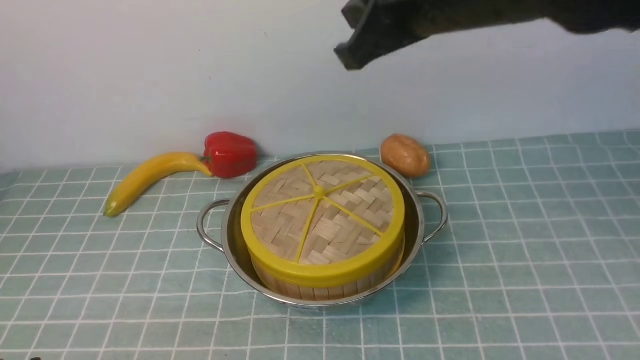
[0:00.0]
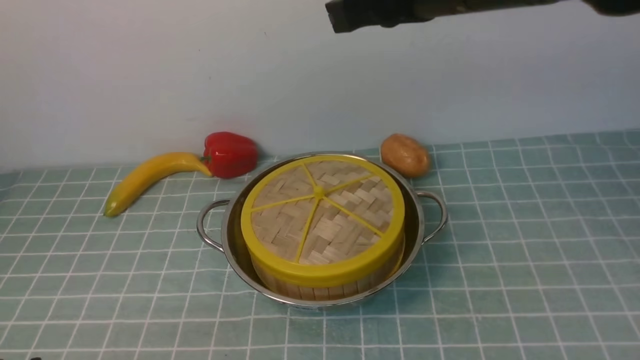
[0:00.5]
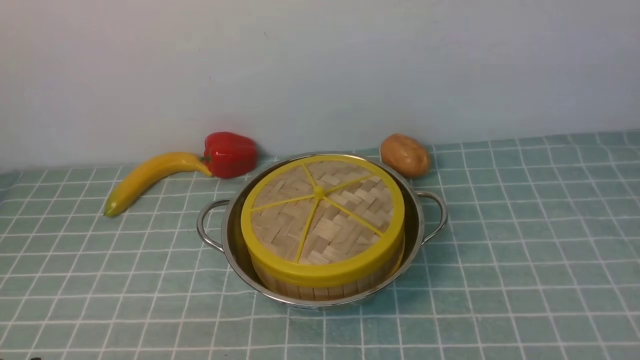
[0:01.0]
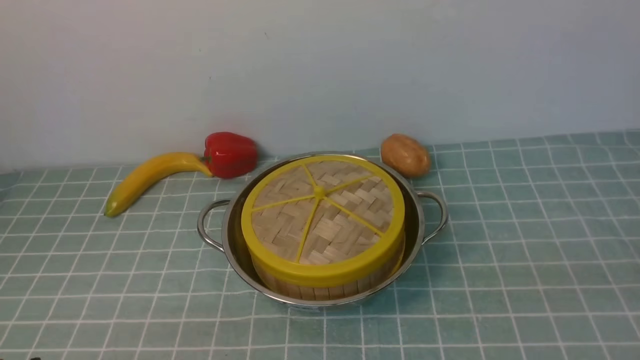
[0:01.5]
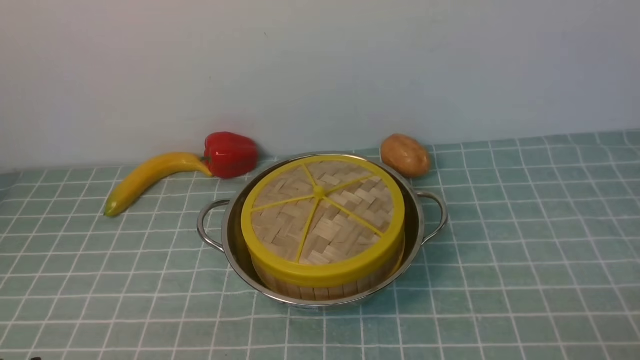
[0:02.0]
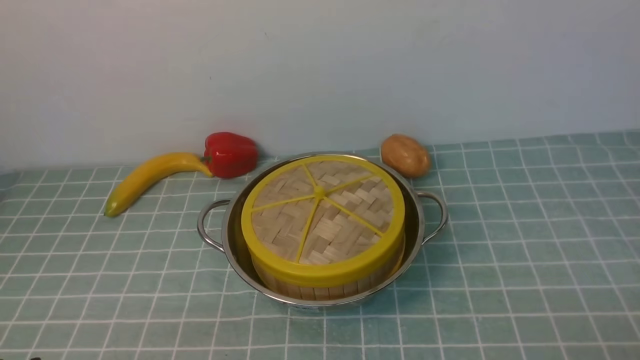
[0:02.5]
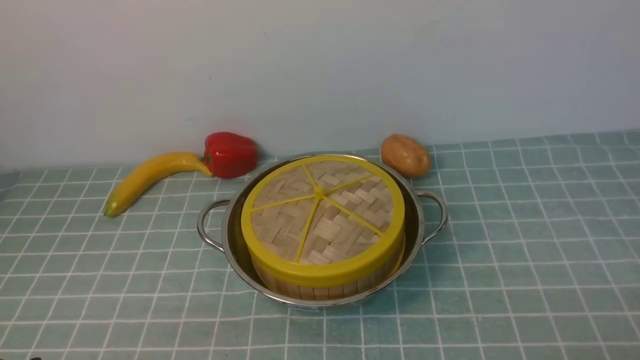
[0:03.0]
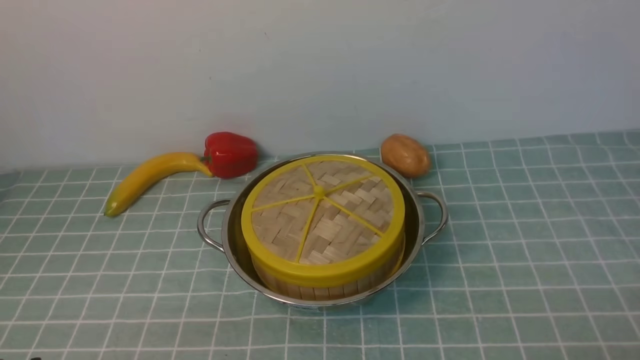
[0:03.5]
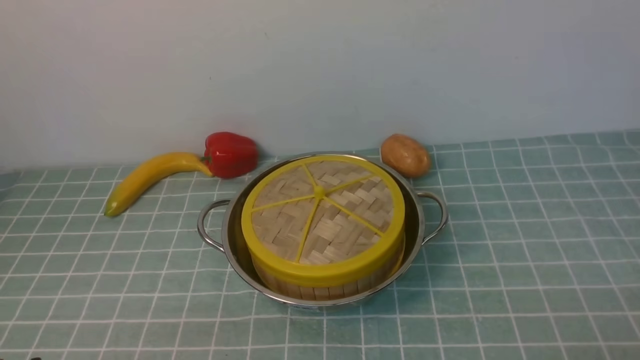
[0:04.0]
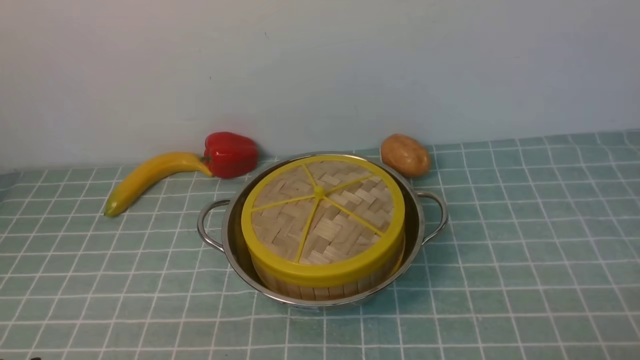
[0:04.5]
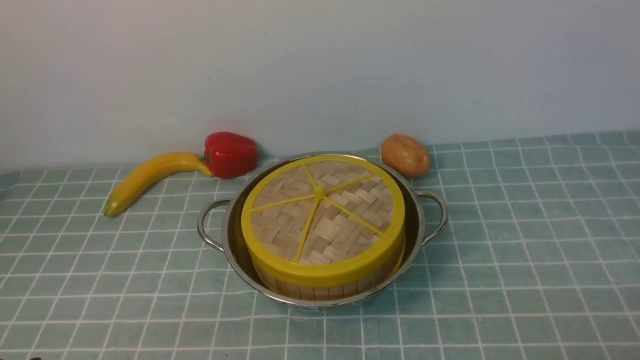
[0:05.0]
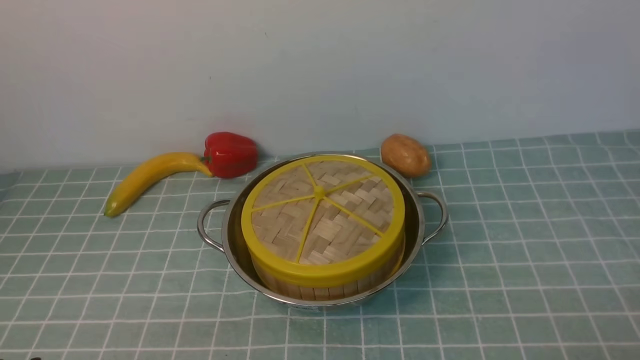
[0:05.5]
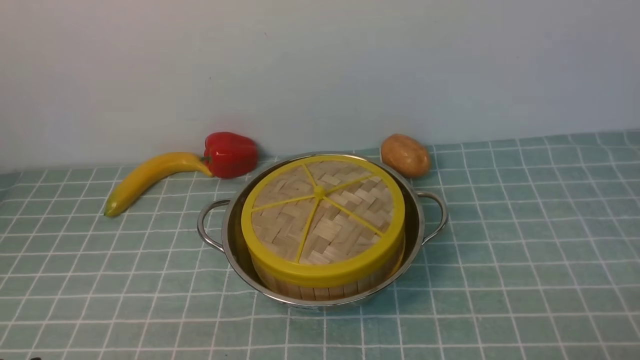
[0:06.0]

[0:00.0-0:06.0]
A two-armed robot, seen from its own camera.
Task of the whole recording: place the steamer in the pot on the blue tablecloth, and put the lid on the steamer.
0:00.0 to 0:02.0: The right gripper goes approximately 40 cm backward, to the right and downward.
0:04.0 to 0:06.0: Both grippers stay put.

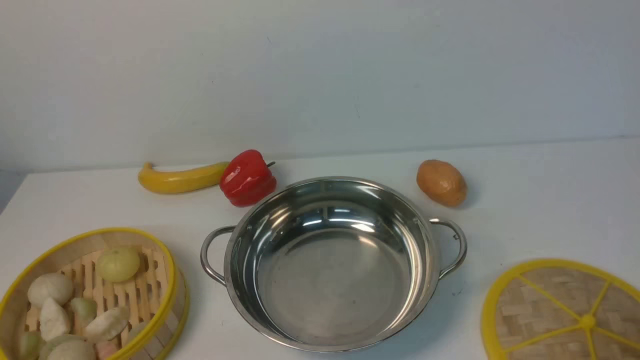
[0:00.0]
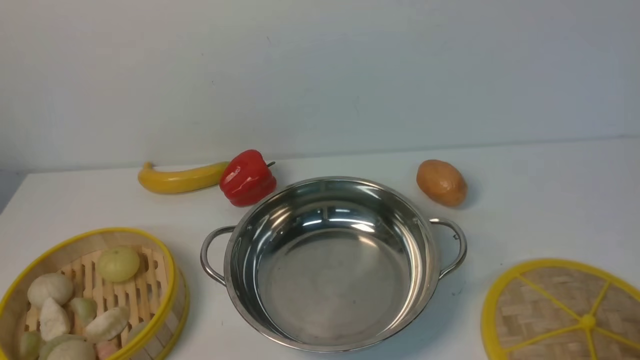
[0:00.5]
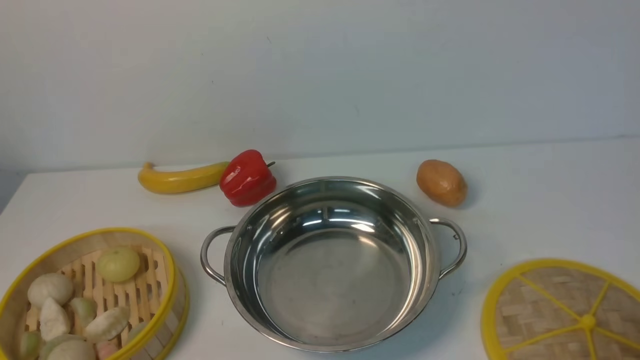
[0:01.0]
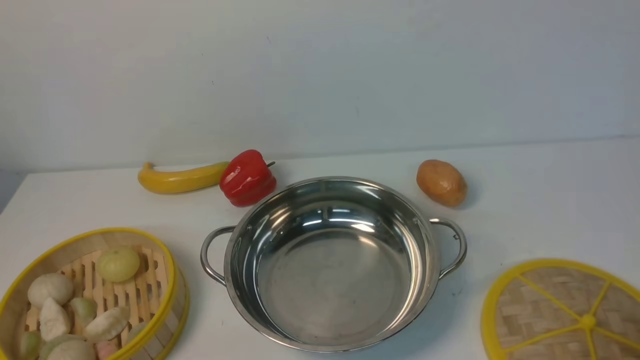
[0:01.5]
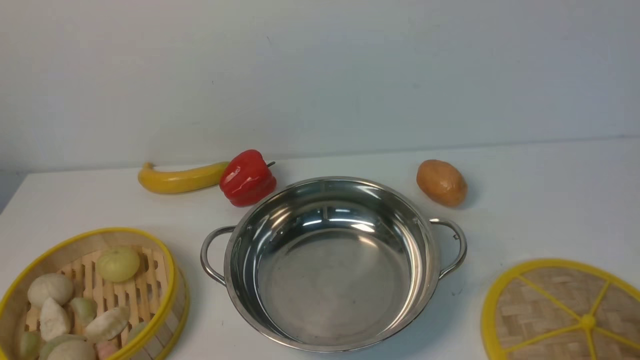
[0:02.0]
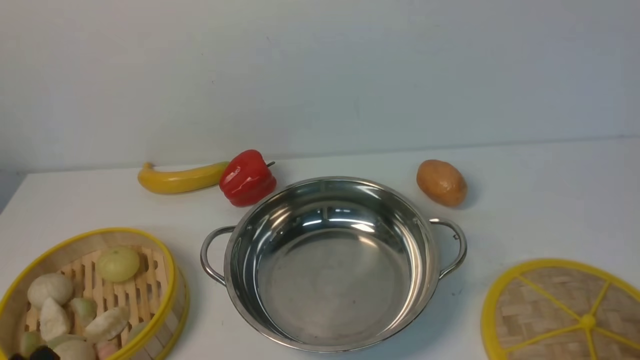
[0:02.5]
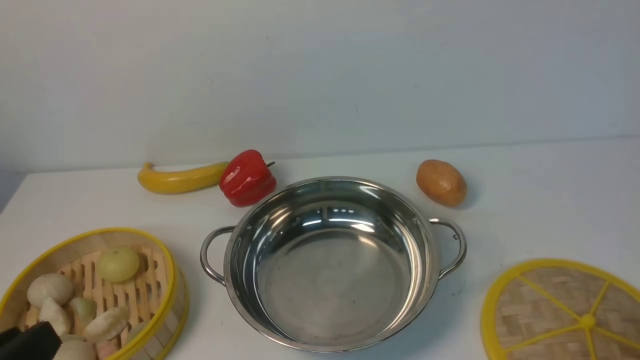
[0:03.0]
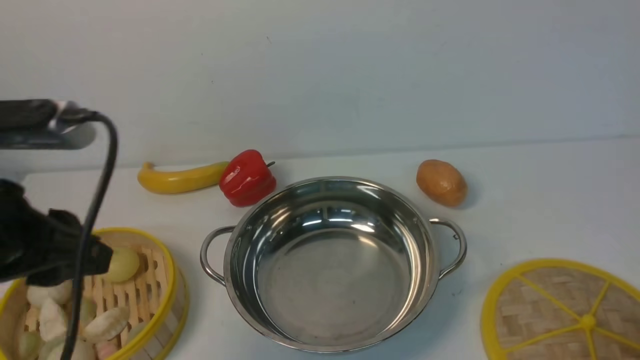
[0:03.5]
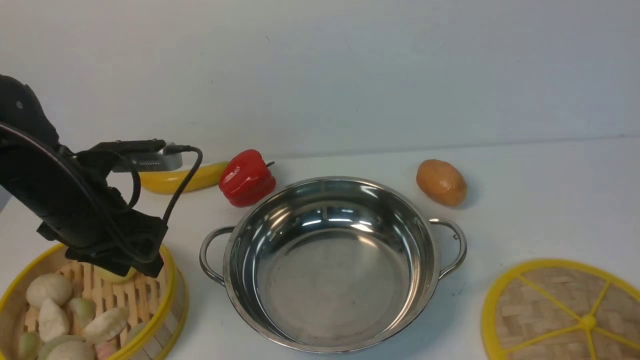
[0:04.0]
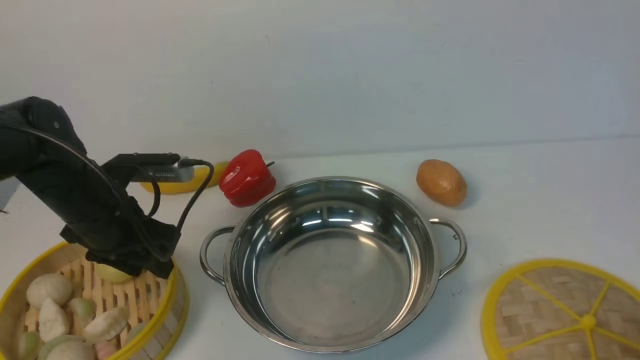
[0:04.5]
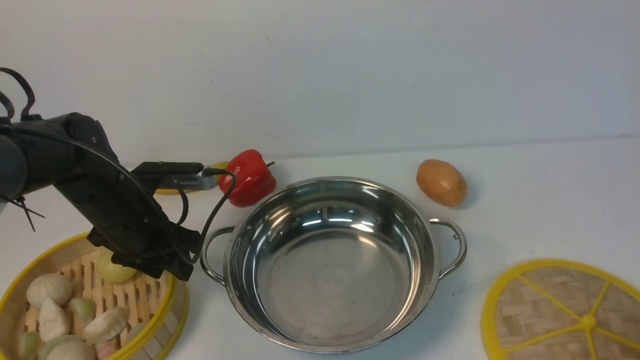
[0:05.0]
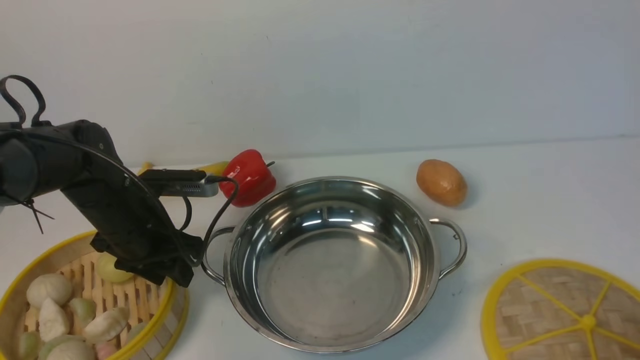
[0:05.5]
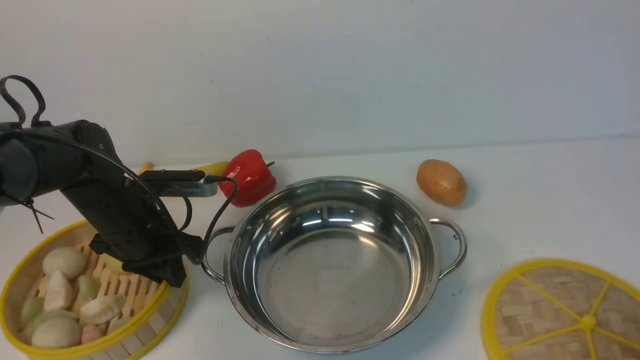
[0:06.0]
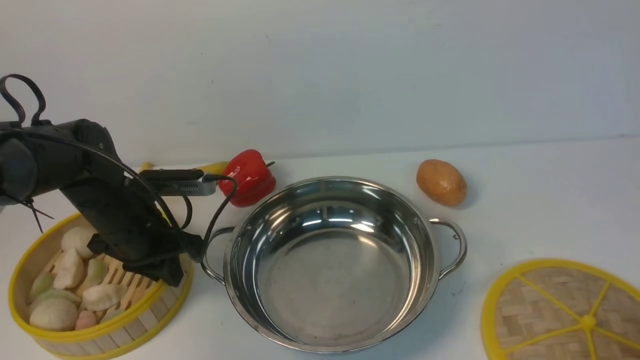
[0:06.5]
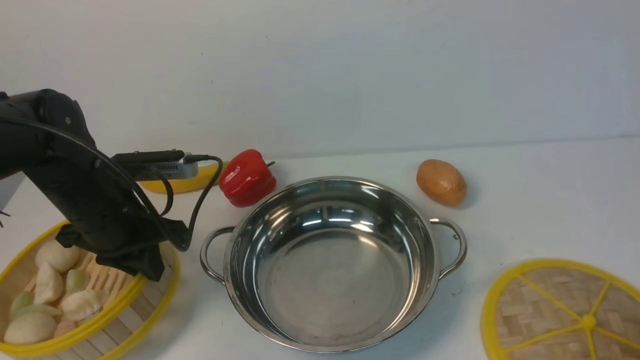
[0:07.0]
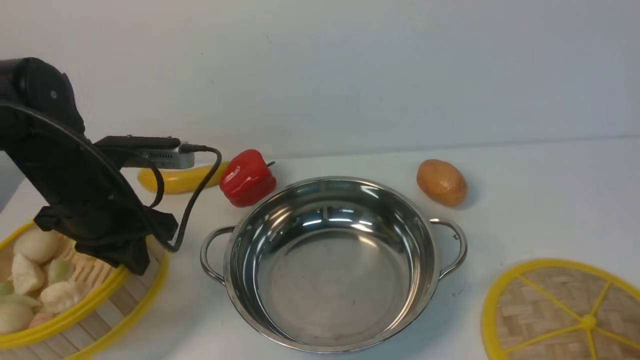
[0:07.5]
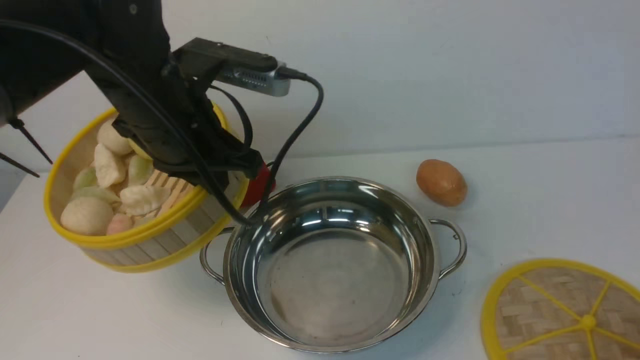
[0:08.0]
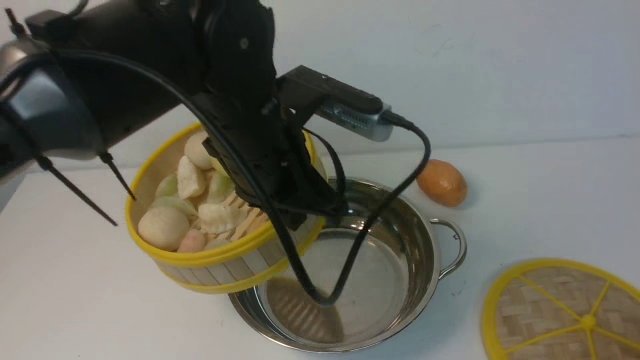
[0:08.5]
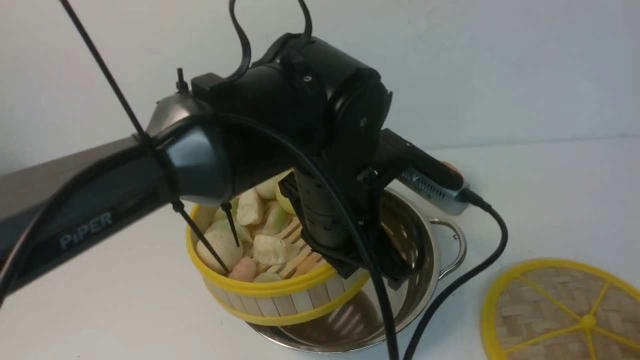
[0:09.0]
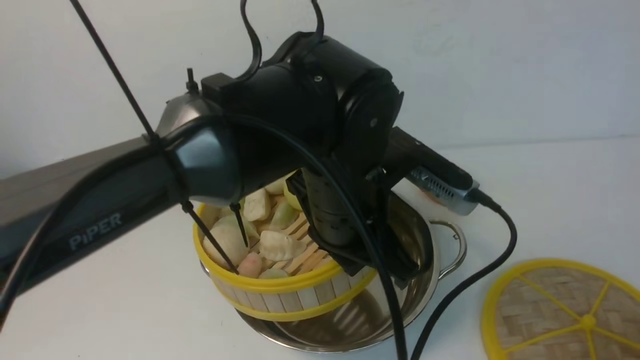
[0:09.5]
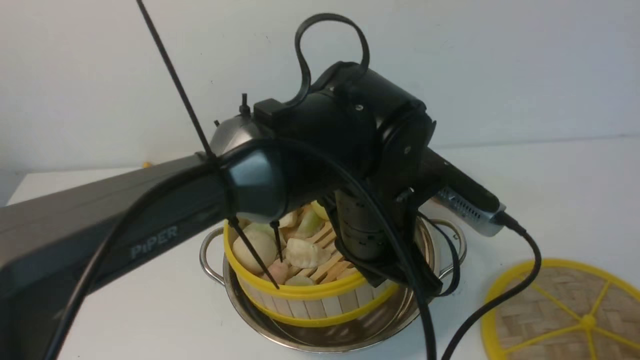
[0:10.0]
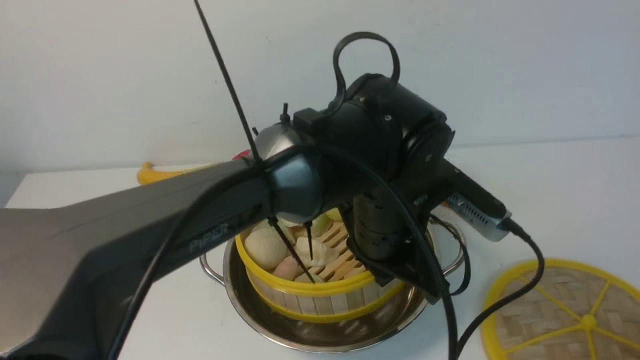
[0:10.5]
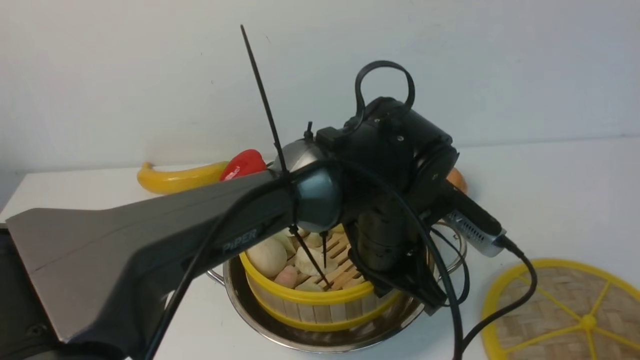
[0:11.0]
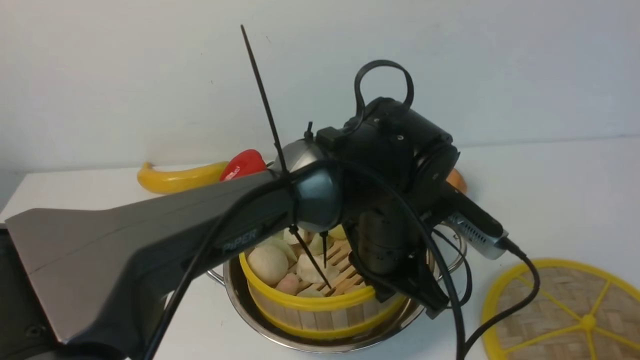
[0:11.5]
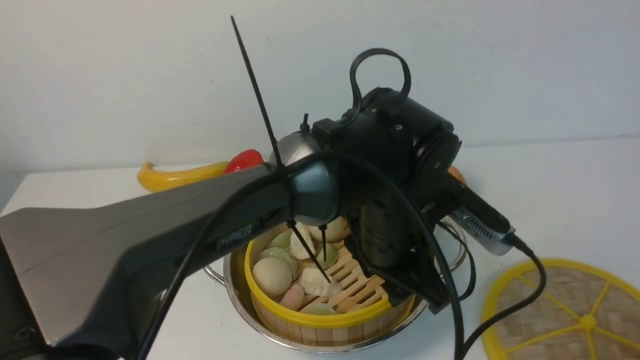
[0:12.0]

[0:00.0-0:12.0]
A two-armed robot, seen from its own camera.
Task of the whole recording: place the steamer in the pot on the white table, and put the lid on the steamer.
Step, 0:00.0 to 0:07.0: use the left arm to lift the steamer closest to it.
0:00.0 to 0:02.0: Both grippers stay about where they are.
0:02.0 to 0:04.0: The left gripper goes some 25 cm forward.
0:04.0 to 0:06.0: The left gripper shifts roughly 10 cm downward, and closes up.
0:06.0 to 0:08.0: The left gripper travels upward and to the right by about 20 cm.
0:08.0 to 0:10.0: The left gripper heads to the right, covering roughly 15 cm.
0:10.0 to 0:12.0: The left gripper opens.

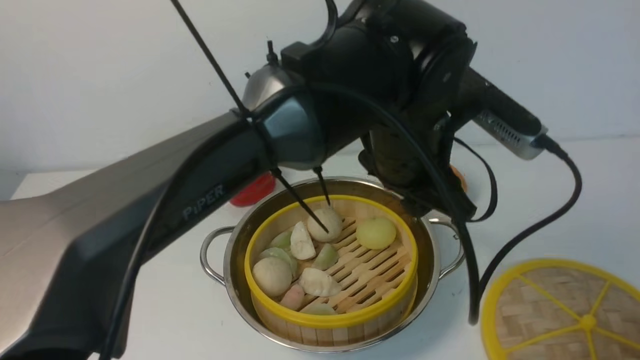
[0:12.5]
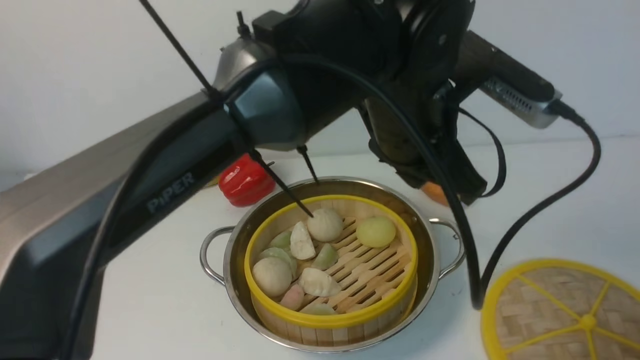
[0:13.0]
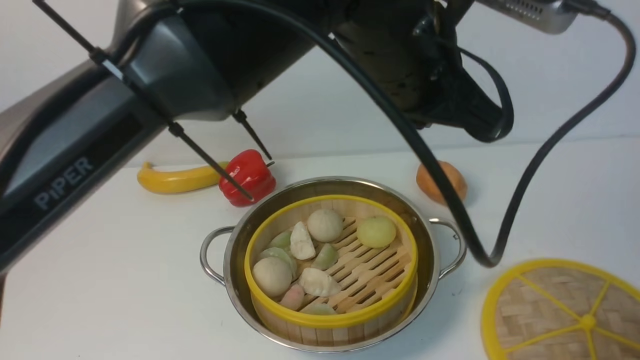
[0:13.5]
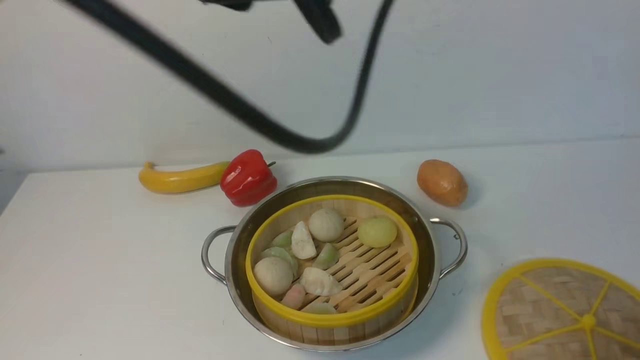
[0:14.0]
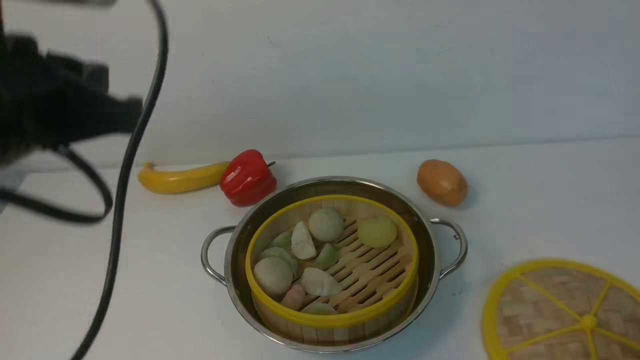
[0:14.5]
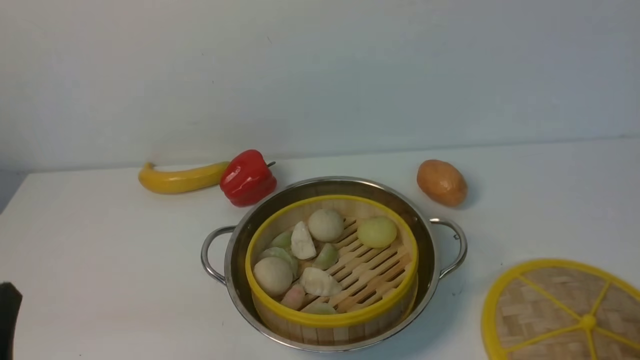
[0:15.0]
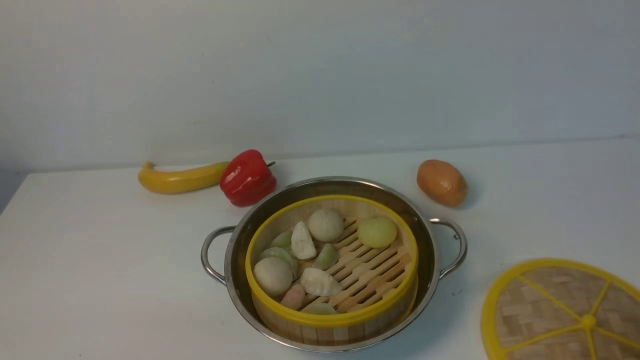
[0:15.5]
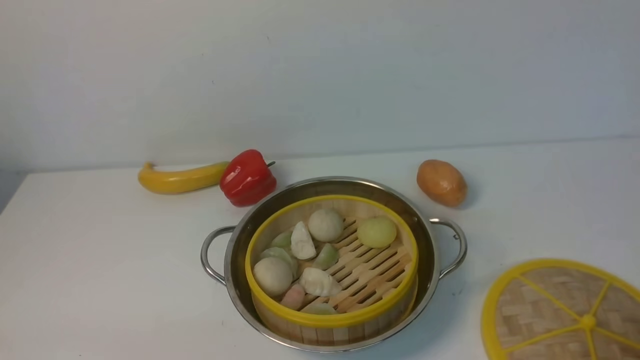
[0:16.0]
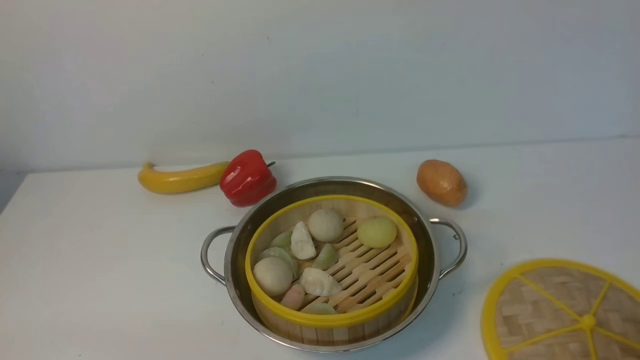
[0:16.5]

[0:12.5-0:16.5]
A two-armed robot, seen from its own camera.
Task of the whole recording: place the steamer in the pot on the white table, and put the lid on the steamer.
0:12.5 to 0:14.5: The left gripper heads to the left, covering some 25 cm, and closes up.
0:14.5 to 0:16.5: The left gripper goes roughly 25 cm downward and backward.
